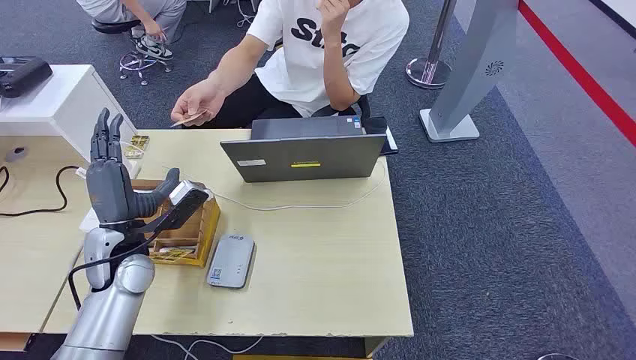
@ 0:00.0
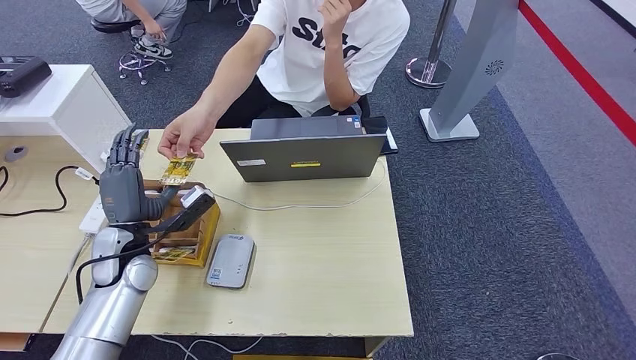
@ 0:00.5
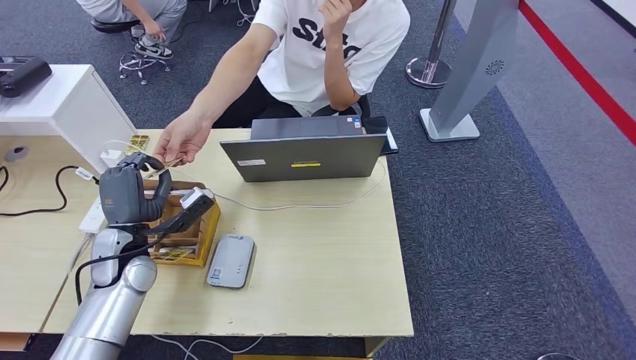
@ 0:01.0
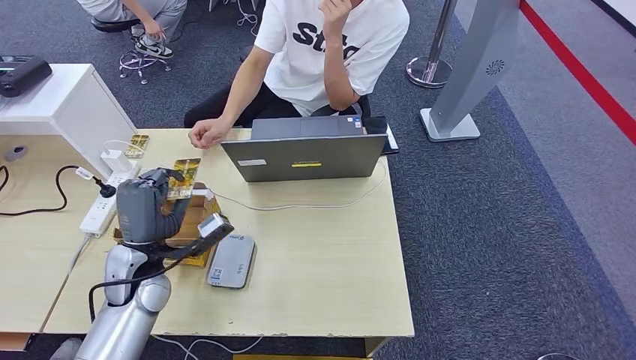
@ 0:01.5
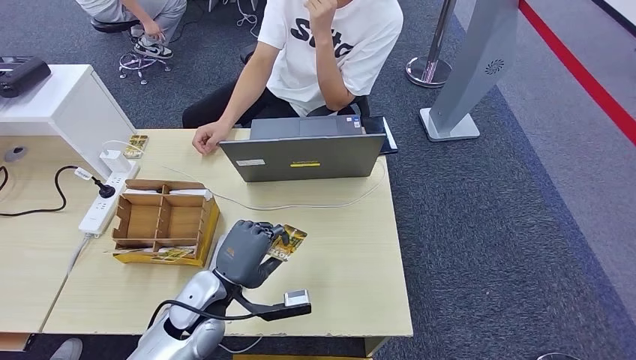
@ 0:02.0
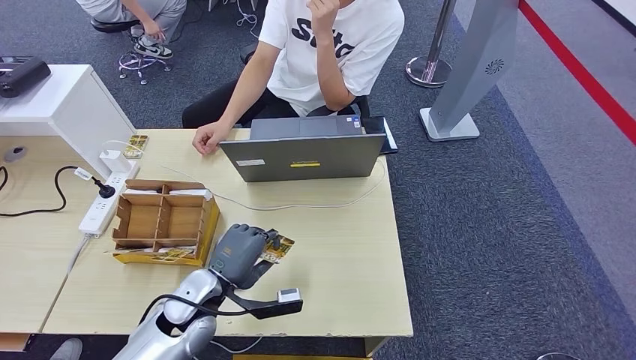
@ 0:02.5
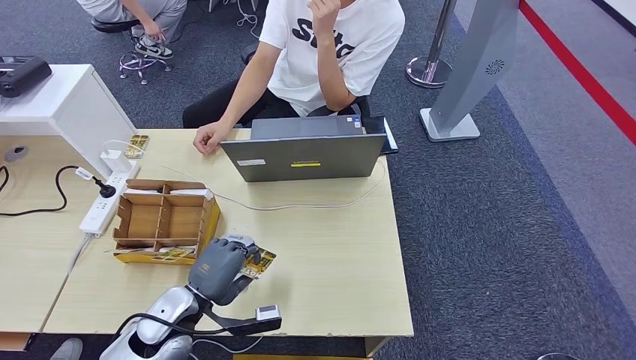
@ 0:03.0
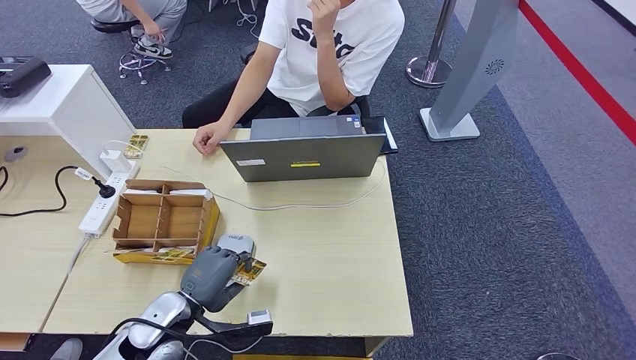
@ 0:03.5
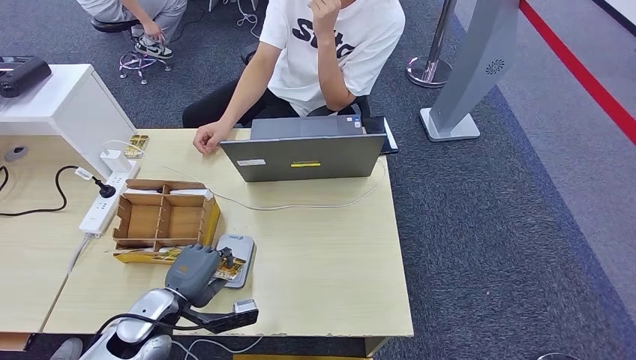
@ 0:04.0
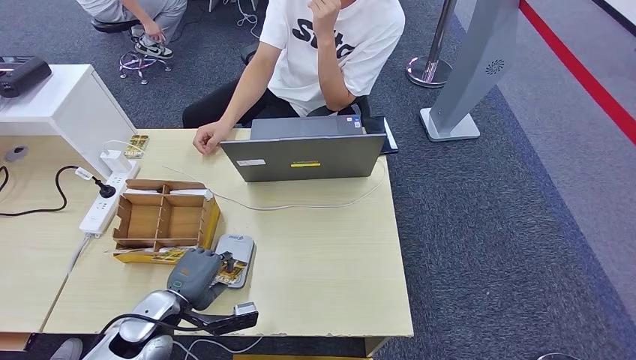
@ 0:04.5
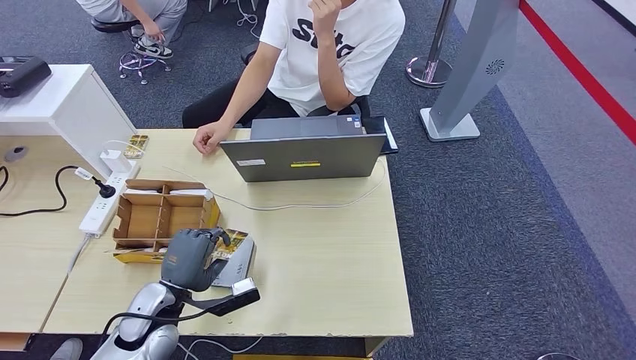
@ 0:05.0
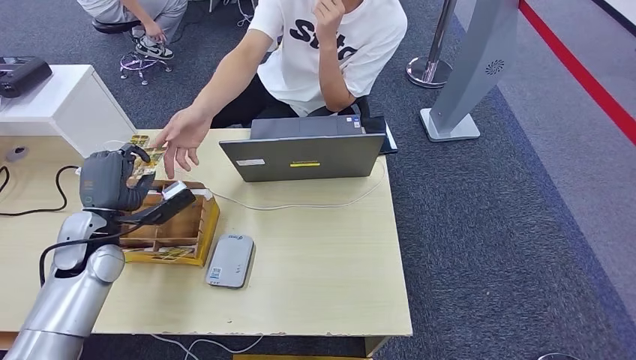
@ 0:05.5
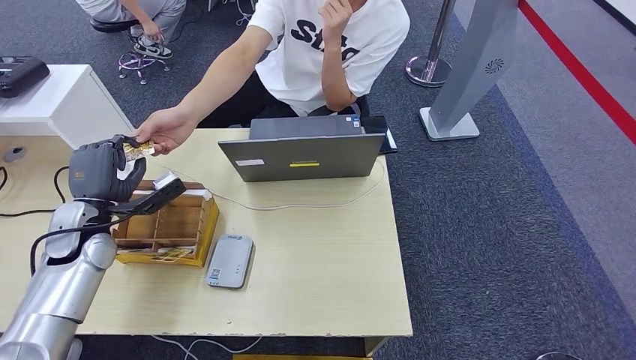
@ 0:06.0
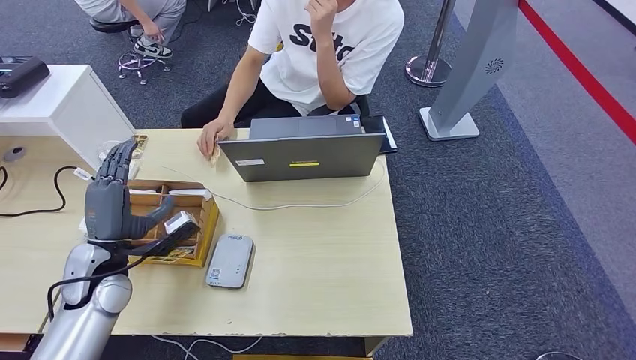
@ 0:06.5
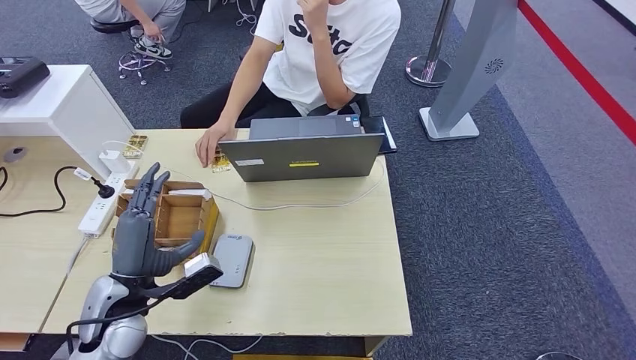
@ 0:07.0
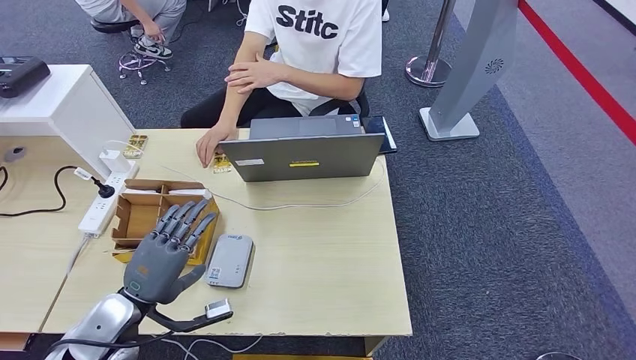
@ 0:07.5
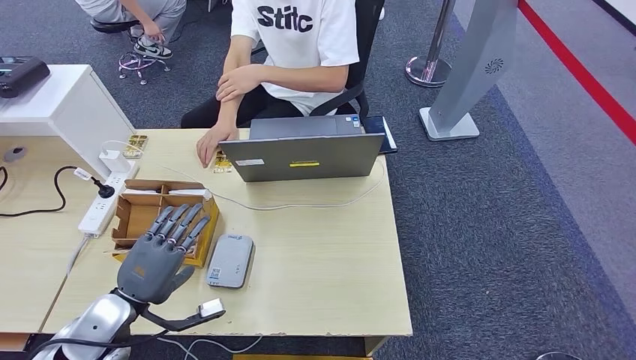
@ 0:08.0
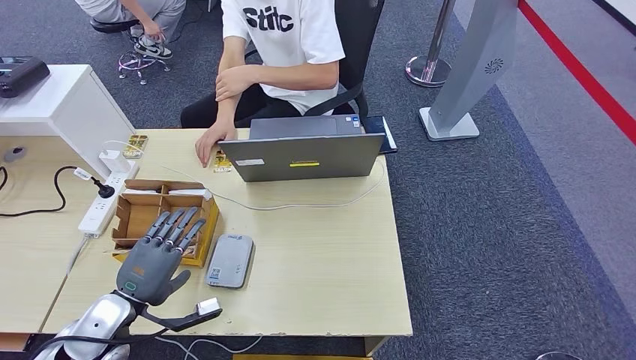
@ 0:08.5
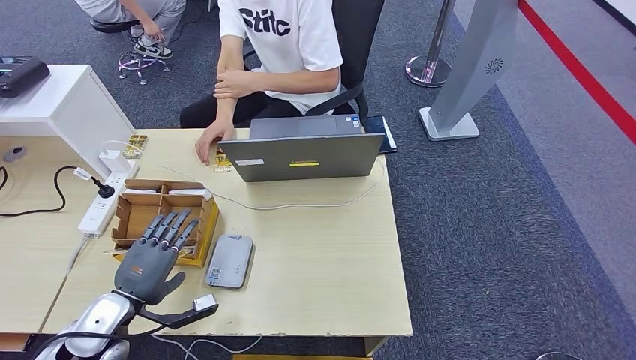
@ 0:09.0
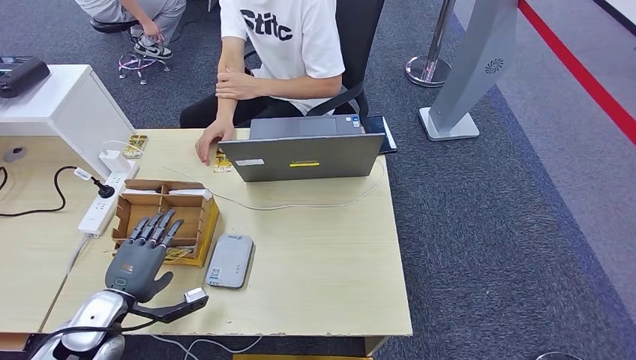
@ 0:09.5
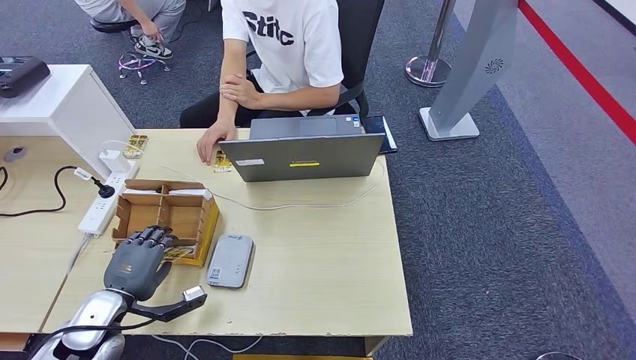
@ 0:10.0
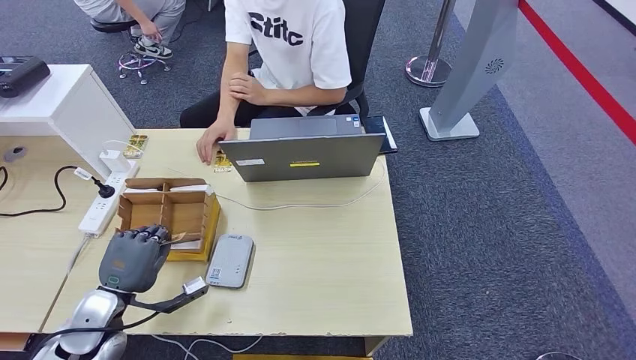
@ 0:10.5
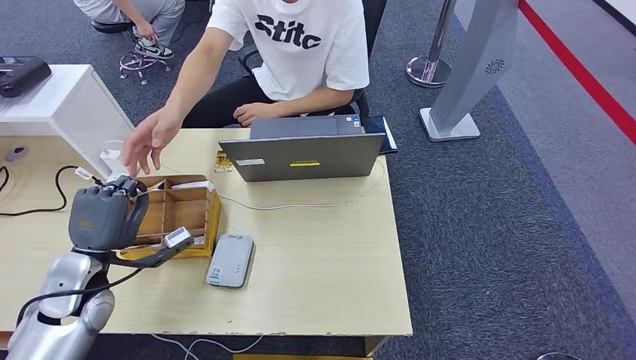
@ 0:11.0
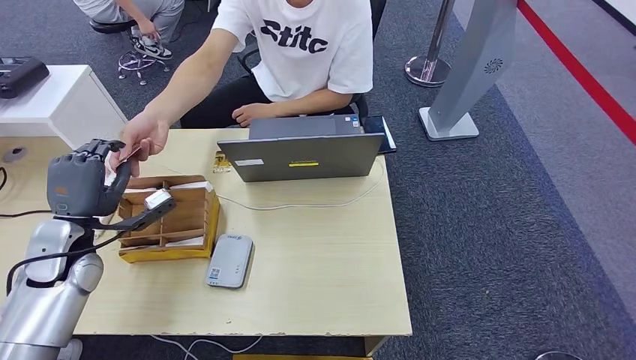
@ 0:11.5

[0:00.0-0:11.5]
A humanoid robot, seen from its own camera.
Step, 0:00.0 to 0:01.5: Take the ID card from the person's hand.
Step, 0:02.0 to 0:04.5: Place the ID card on the card reader.
Step, 0:05.5 to 0:06.0: Hand the ID card to the person.
Step, 0:09.0 to 0:10.5: Pick up the room key from the key card box.
Step, 0:11.0 to 0:11.5: Hand the room key to the person.
0:02.0 to 0:04.0: The left hand goes approximately 10 cm to the left.
0:04.0 to 0:06.0: The left hand shifts roughly 20 cm forward, to the left and upward.
0:06.0 to 0:07.5: The left hand shifts about 15 cm backward and to the right.
0:07.5 to 0:09.5: The left hand goes roughly 5 cm to the left.
